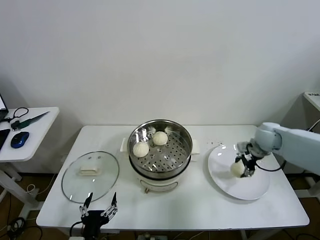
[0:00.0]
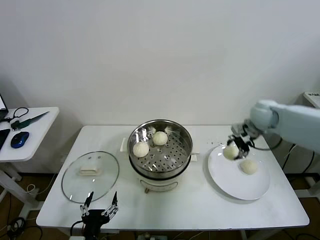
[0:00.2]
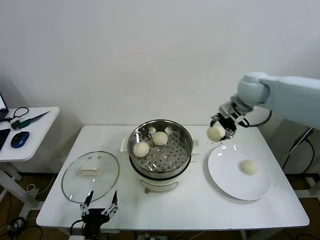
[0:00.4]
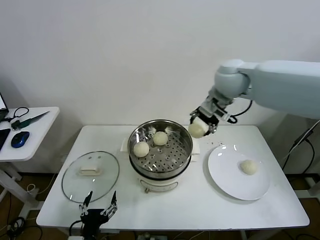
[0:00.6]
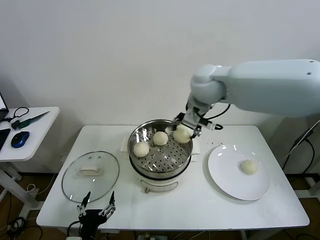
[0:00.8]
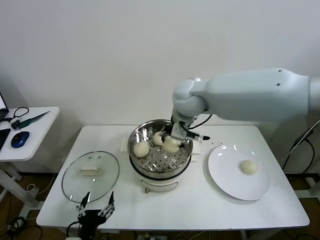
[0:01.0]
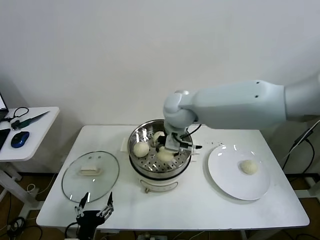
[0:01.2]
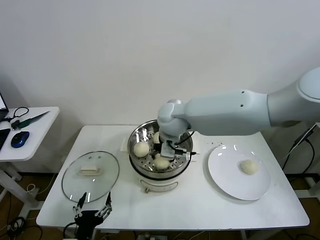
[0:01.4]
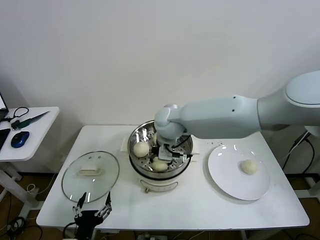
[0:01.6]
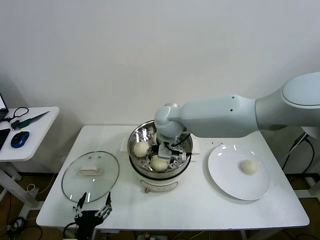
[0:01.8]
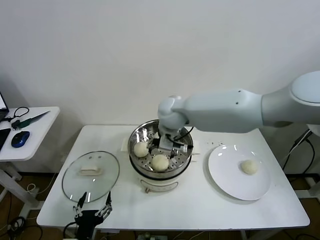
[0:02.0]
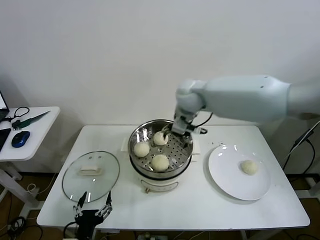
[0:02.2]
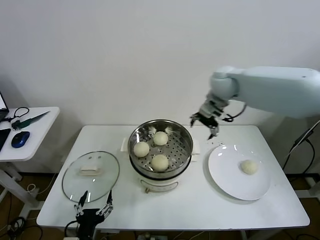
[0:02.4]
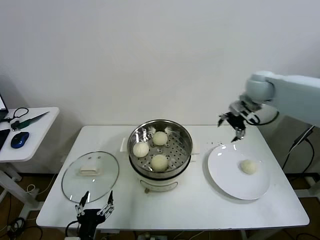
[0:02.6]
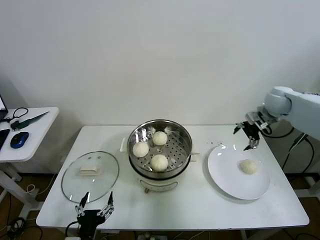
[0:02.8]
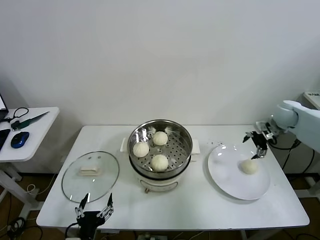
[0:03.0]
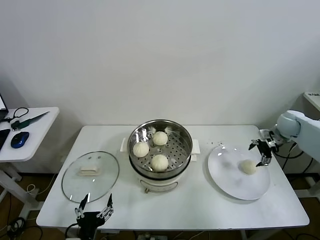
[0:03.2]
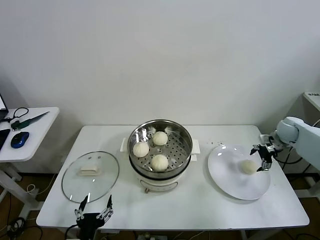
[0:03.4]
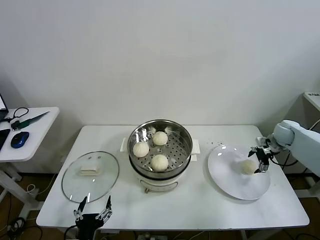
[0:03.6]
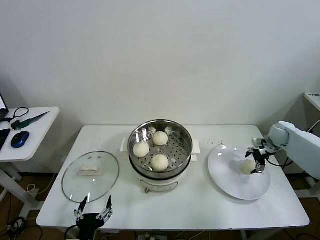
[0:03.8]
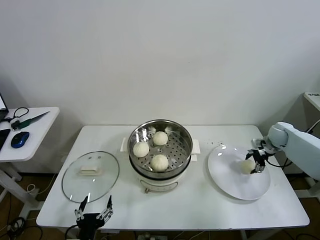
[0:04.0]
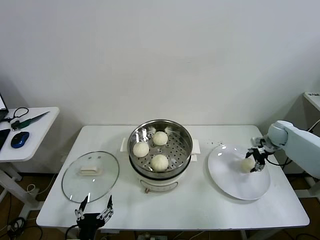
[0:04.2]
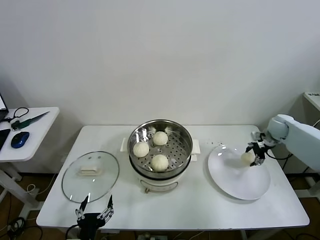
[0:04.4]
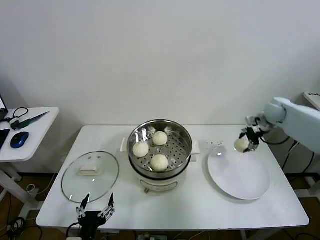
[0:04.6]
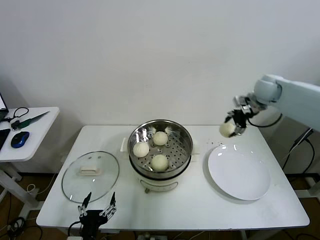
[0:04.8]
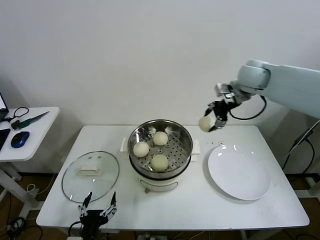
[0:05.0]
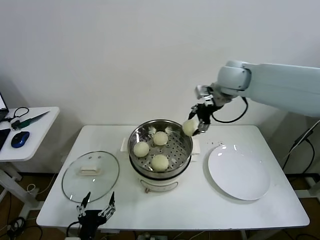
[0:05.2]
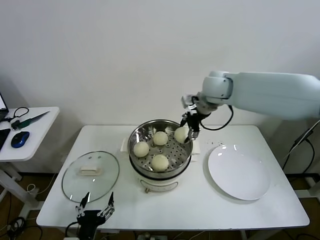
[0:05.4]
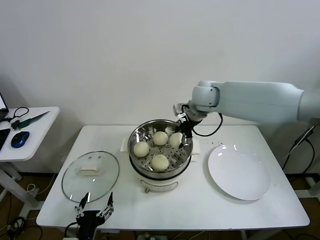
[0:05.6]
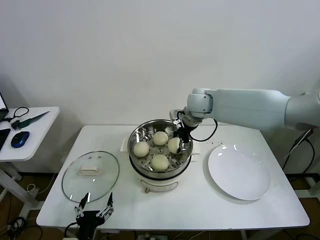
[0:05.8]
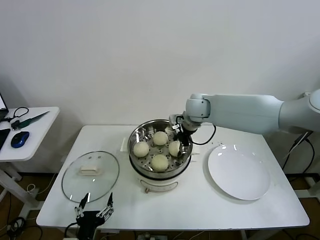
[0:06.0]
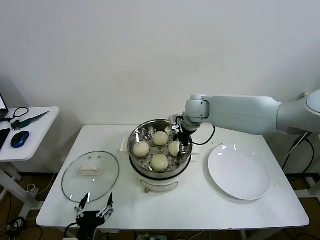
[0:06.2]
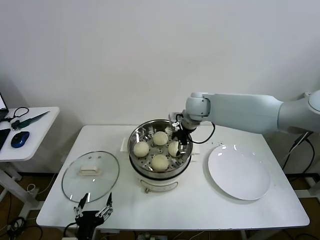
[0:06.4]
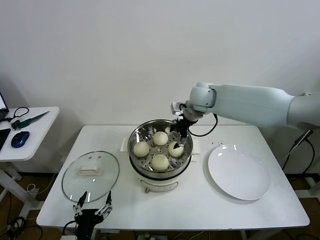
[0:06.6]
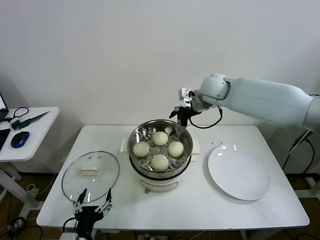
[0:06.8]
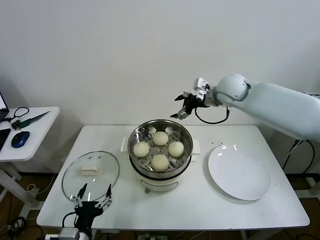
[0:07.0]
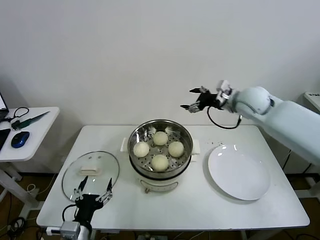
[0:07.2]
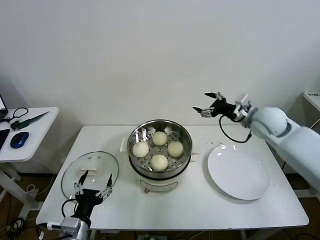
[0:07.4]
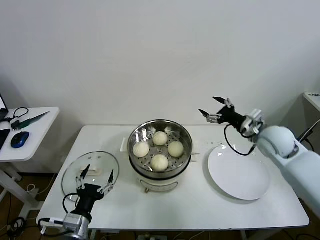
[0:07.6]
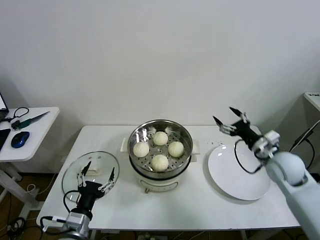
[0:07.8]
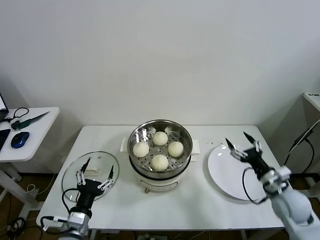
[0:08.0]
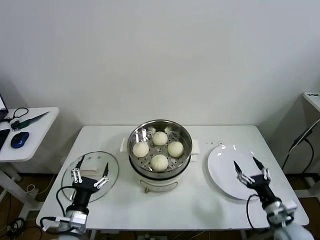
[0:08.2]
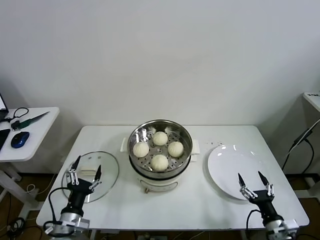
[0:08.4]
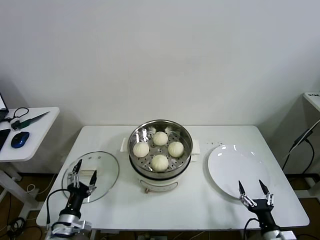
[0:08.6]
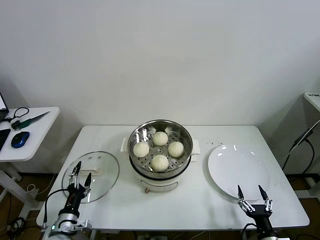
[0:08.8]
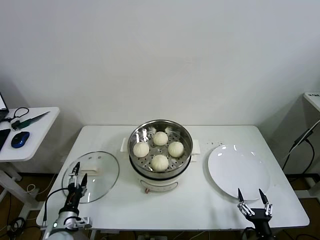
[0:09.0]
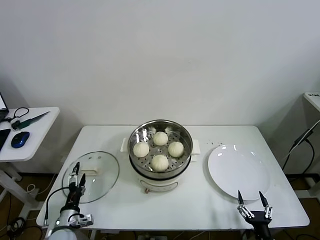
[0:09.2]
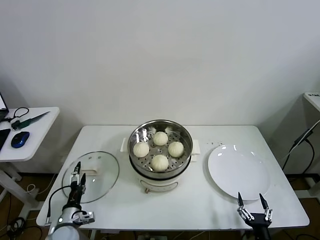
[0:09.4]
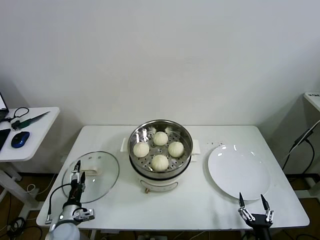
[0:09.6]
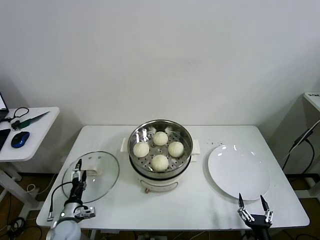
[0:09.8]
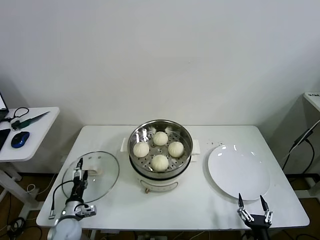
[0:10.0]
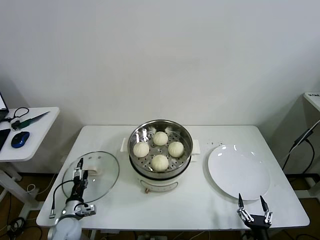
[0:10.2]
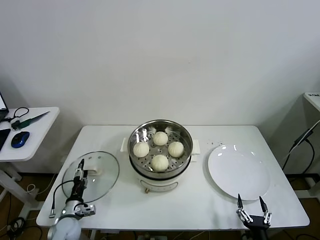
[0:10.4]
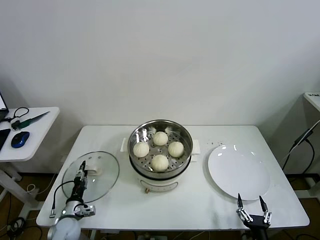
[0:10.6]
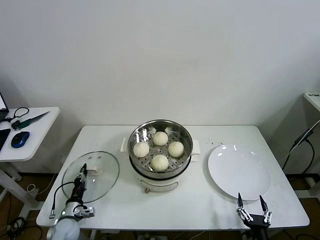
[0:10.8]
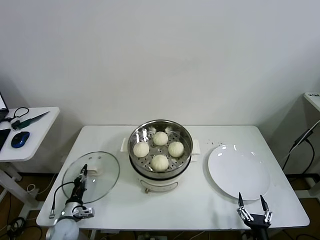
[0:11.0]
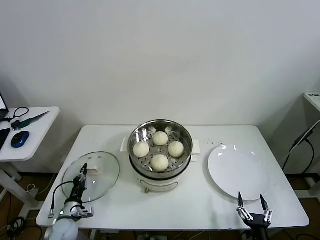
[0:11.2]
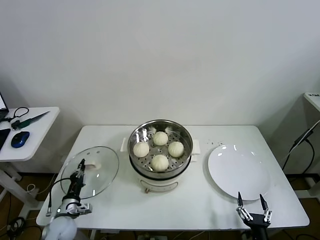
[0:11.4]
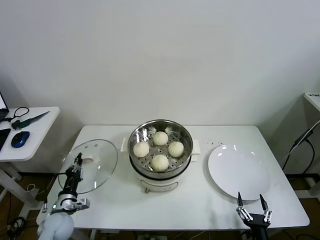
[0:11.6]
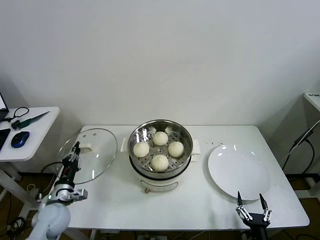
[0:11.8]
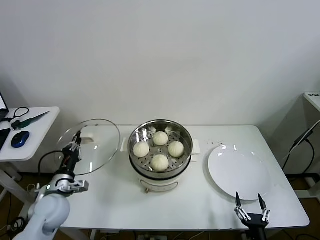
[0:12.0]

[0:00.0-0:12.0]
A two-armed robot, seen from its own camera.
Task of the whole recording: take steamed baozi put them in steamer then cover it.
Step, 0:00.0 to 0:02.0: Place the baozi on the steamer with right gripper.
Step, 0:02.2 to 0:04.0: Grasp the baozi in the plate with right gripper.
Step, 0:04.2 to 0:06.2: Place the baozi on the steamer with right gripper.
Step, 0:06.6 to 0:10.8: Grasp the pot lid with left gripper.
0:00.0 to 0:01.6: The right gripper heads to the left, covering some 35 cm.
0:01.6 to 0:03.0: The right gripper moves to the right, approximately 40 cm, and opens up.
0:03.0 to 0:04.4: The right gripper moves downward, approximately 5 cm, and closes up.
0:04.4 to 0:06.0: The right gripper travels to the left by about 35 cm.
0:06.0 to 0:07.6: The right gripper travels to the right and backward by roughly 25 cm, and opens up; the left gripper moves forward, approximately 5 cm.
0:07.6 to 0:09.0: The right gripper moves backward and downward, some 40 cm; the left gripper travels downward and to the left by some 15 cm.
0:09.0 to 0:10.4: The left gripper moves downward and forward, about 10 cm.
0:10.4 to 0:12.0: The left gripper shifts some 15 cm upward, and closes up.

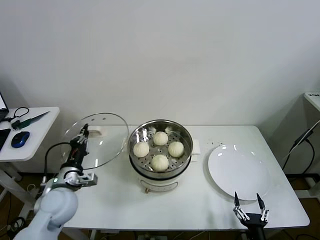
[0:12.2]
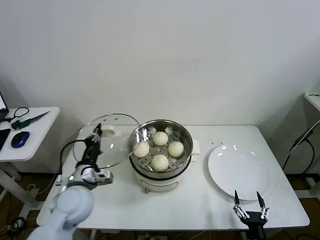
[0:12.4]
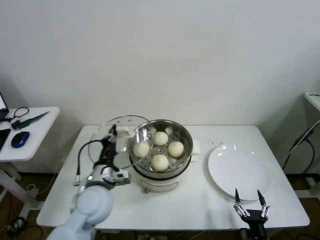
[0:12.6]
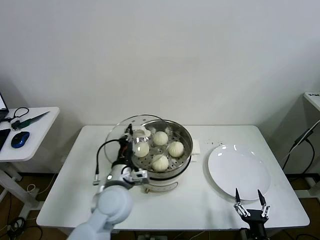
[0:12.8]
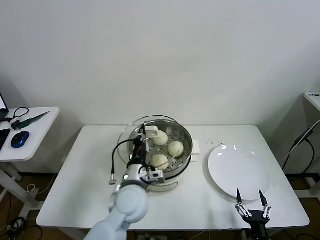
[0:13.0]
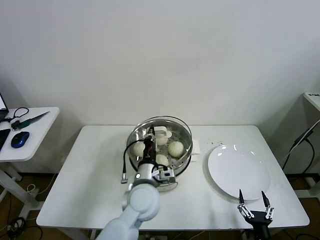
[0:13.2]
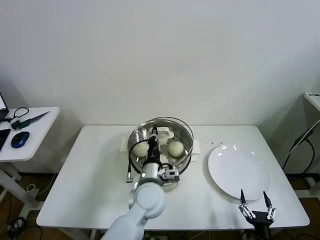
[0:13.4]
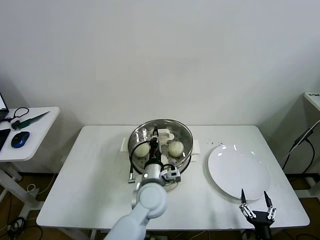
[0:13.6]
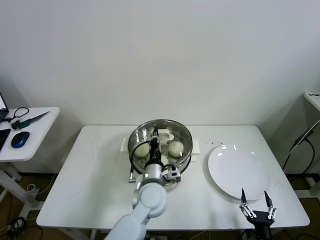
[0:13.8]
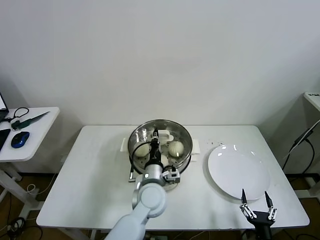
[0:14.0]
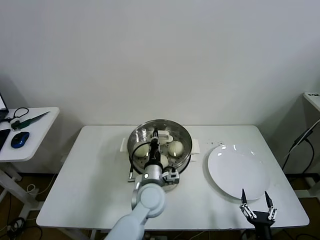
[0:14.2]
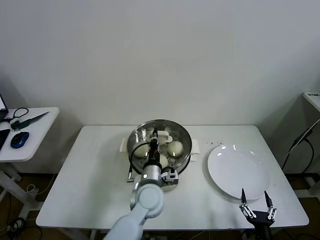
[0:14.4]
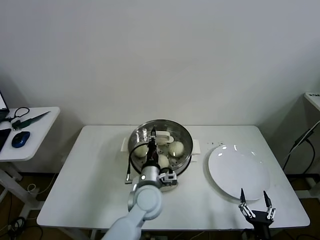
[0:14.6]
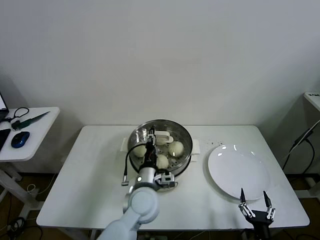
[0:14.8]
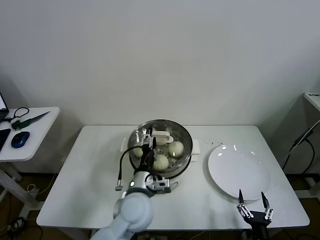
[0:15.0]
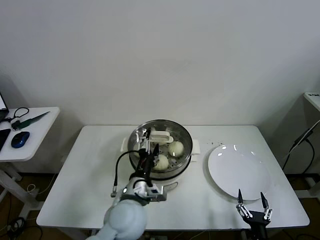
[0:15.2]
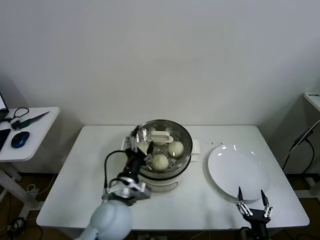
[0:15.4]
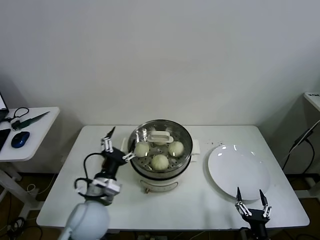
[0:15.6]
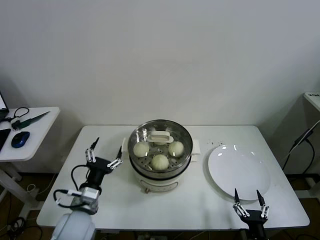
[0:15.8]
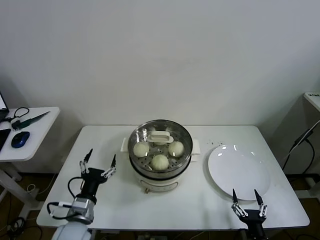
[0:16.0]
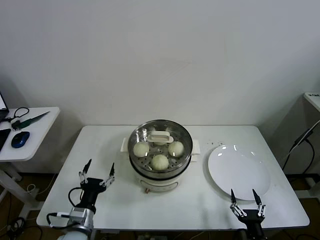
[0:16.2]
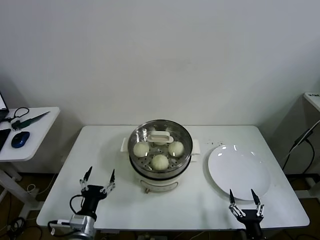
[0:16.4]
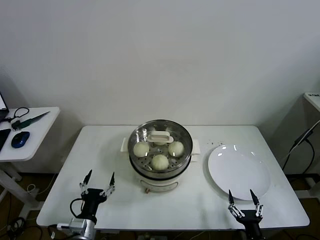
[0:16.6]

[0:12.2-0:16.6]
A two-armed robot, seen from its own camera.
Task of the whole recording: take steamed baozi put them in steamer then cover it.
Step, 0:12.2 to 0:15.0: Place the pot lid on the steamer with left gripper.
0:12.2 to 0:13.6: The left gripper is displaced to the right by approximately 30 cm.
0:13.6 to 0:15.2: The left gripper travels backward by roughly 5 cm, and opens up.
0:15.2 to 0:16.6: The left gripper shifts some 25 cm to the left, downward and backward.

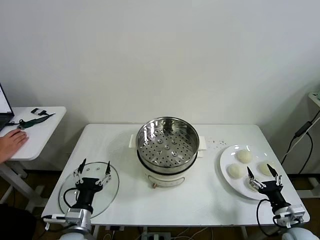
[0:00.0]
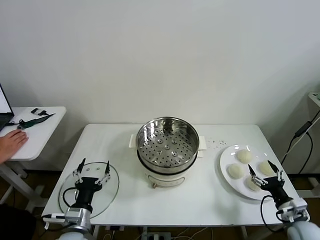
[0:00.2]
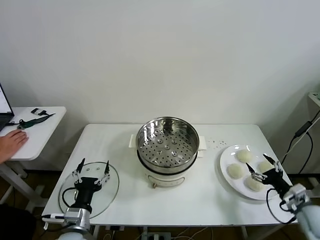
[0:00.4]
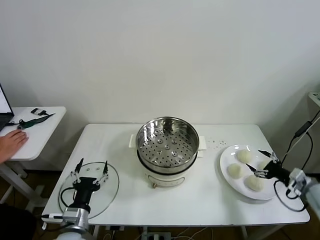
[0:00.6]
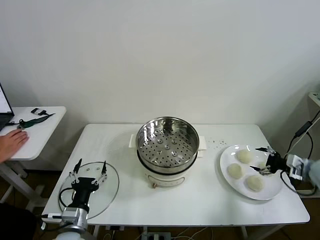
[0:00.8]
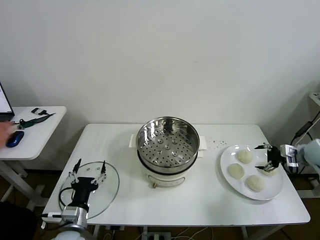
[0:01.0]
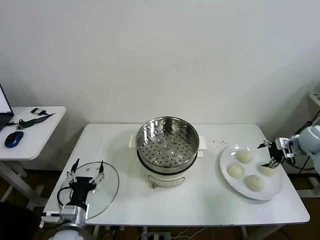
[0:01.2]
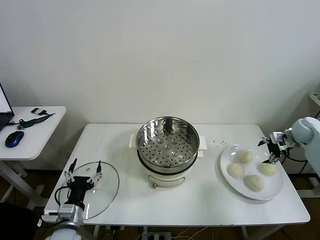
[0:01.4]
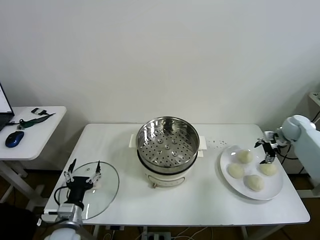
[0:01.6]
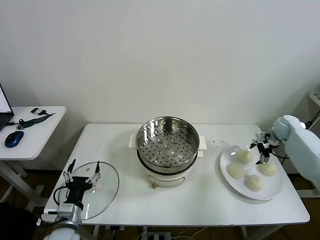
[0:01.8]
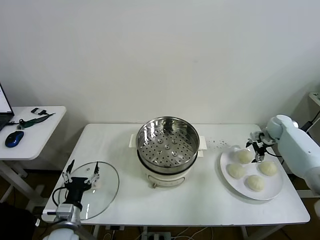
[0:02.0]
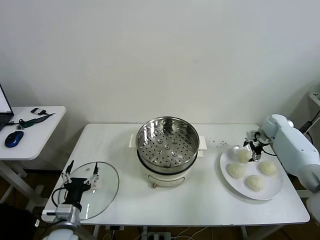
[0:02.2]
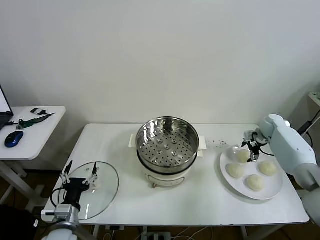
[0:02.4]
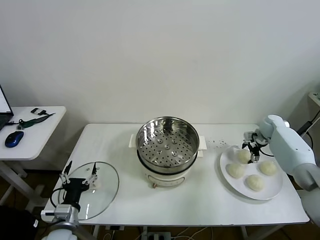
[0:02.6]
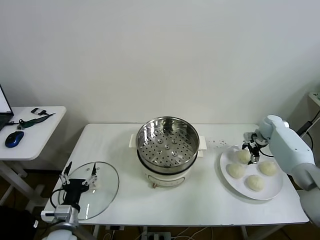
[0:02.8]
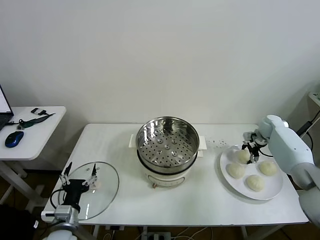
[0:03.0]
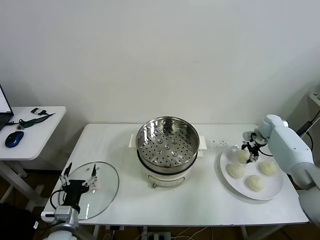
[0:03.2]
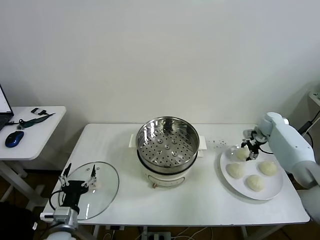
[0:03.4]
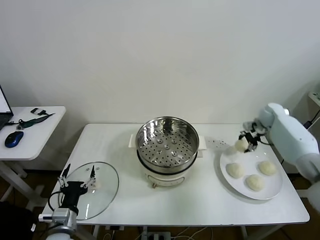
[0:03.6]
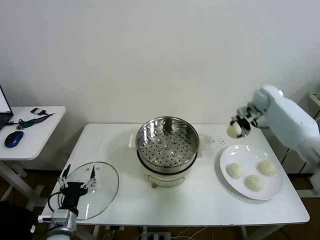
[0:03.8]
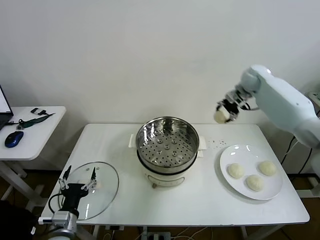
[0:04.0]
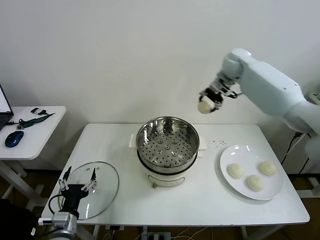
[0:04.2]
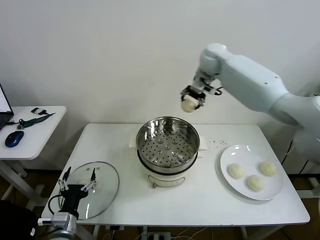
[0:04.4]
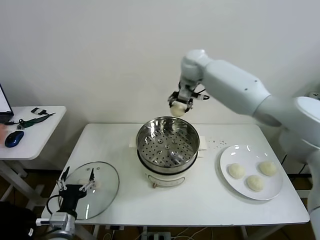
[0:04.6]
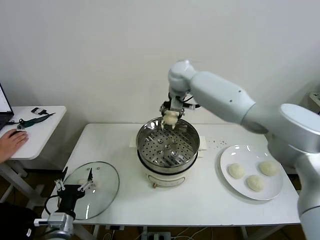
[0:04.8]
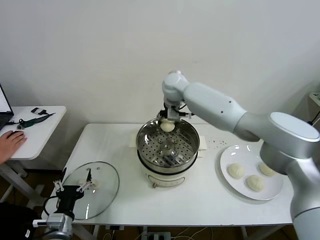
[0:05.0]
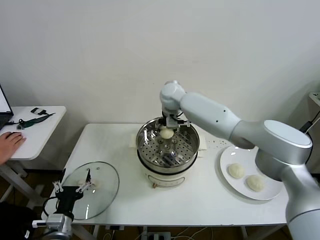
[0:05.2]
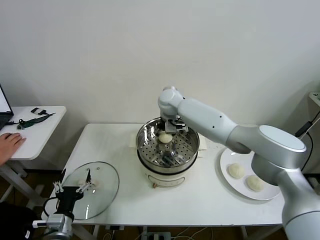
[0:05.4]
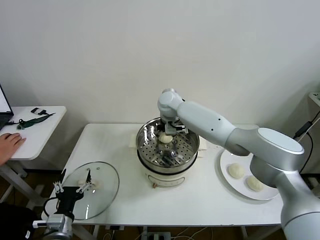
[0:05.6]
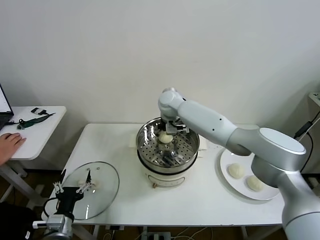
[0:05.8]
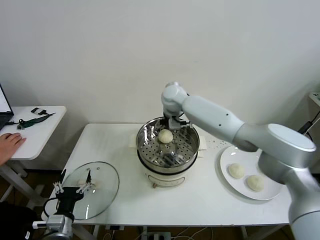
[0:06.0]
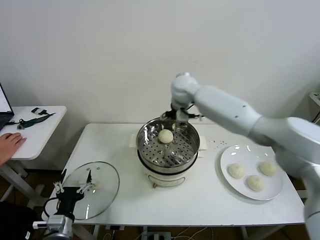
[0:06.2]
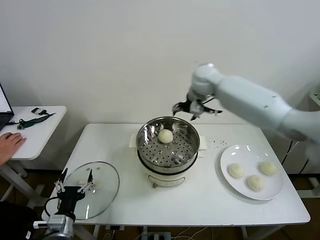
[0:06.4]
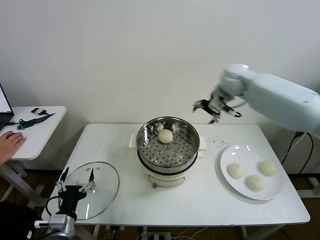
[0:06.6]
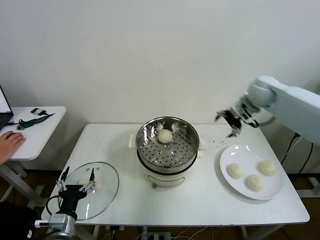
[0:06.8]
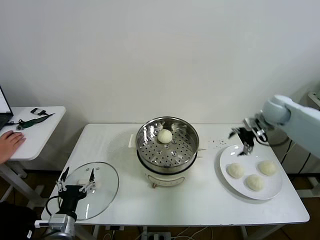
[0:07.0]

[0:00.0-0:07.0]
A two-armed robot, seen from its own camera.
Task of the whole recording: take steamed baozi put them in steamer then cover it.
Step, 0:00.0 to 0:03.0: Grasp the baozi in the plate with right gripper.
Step, 0:03.2 to 0:05.6: Place the baozi on the steamer with right gripper.
0:01.4 to 0:02.8: The right gripper is displaced to the left and forward by approximately 10 cm.
0:02.8 to 0:04.2: The right gripper moves upward and to the left, about 35 cm, and closes up.
0:04.2 to 0:05.6: The right gripper shifts approximately 25 cm to the left and downward, and opens its fingers.
0:05.6 to 0:07.0: The right gripper heads to the right, covering about 40 cm.
